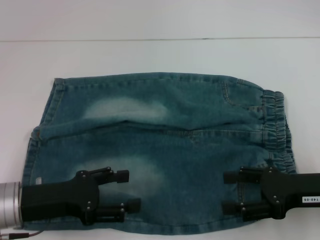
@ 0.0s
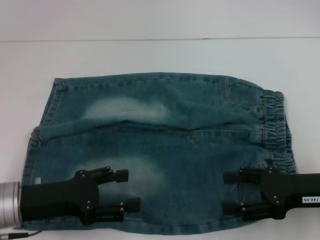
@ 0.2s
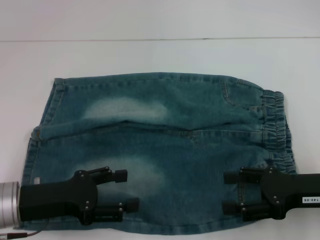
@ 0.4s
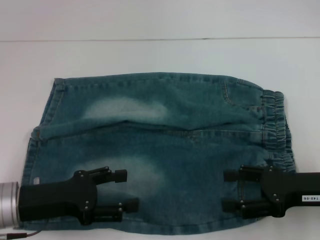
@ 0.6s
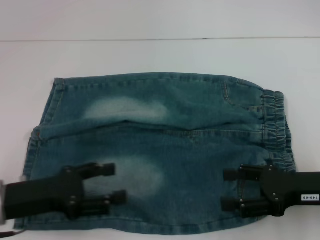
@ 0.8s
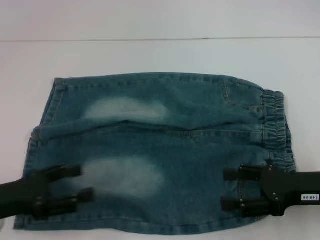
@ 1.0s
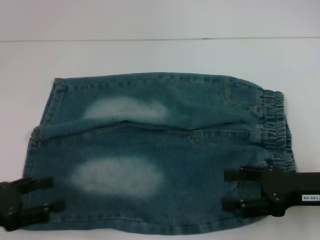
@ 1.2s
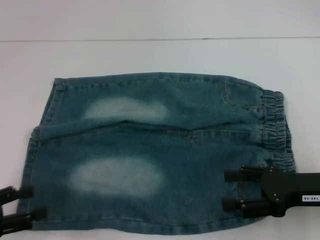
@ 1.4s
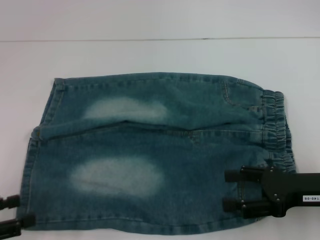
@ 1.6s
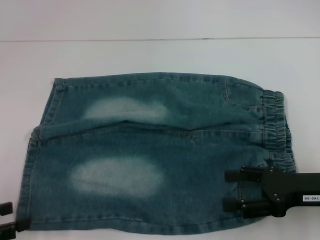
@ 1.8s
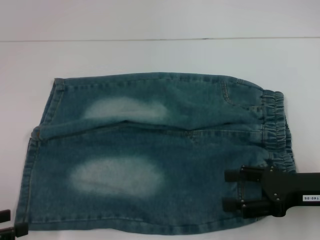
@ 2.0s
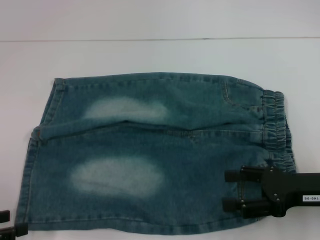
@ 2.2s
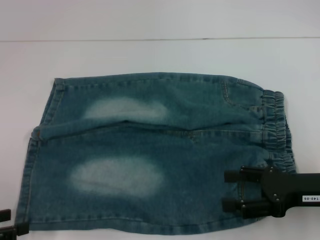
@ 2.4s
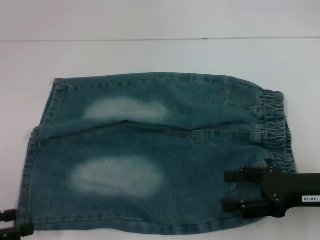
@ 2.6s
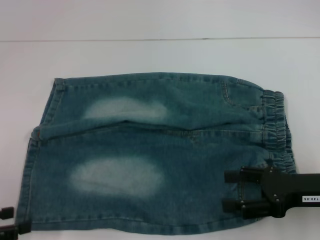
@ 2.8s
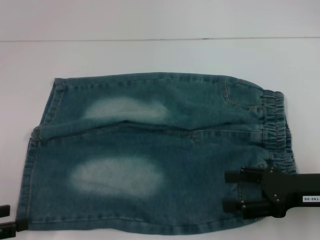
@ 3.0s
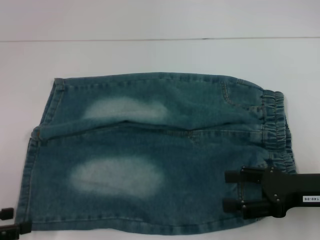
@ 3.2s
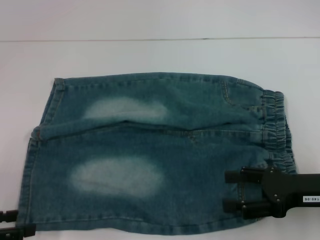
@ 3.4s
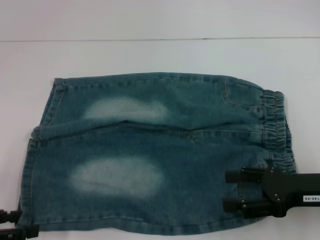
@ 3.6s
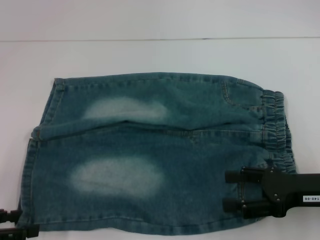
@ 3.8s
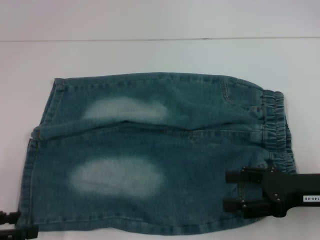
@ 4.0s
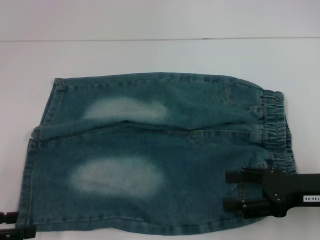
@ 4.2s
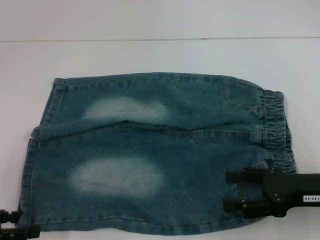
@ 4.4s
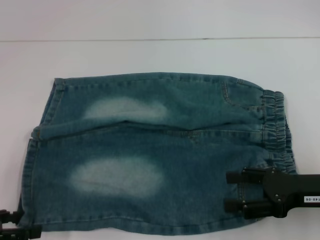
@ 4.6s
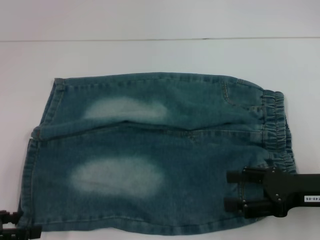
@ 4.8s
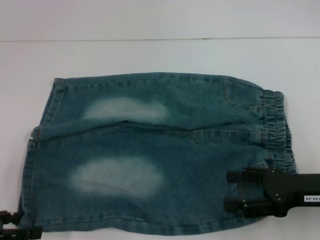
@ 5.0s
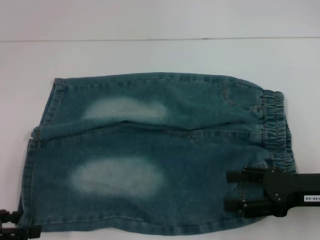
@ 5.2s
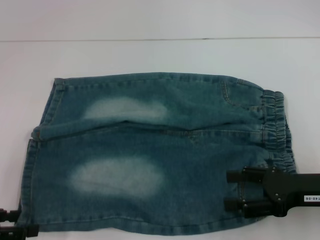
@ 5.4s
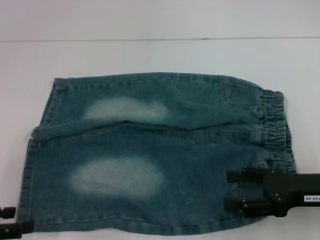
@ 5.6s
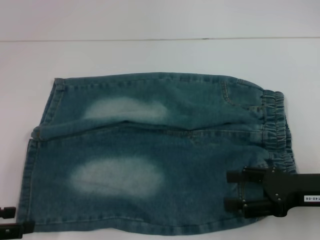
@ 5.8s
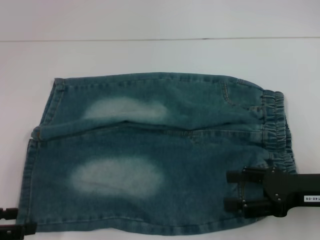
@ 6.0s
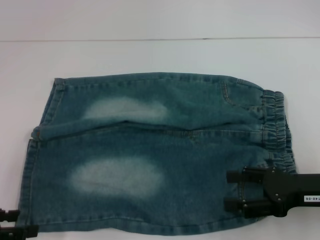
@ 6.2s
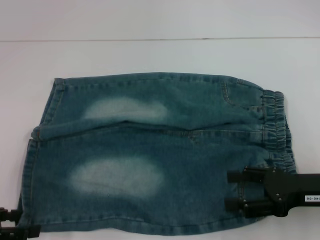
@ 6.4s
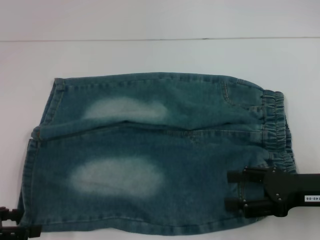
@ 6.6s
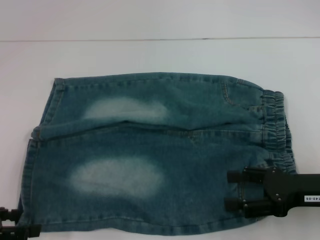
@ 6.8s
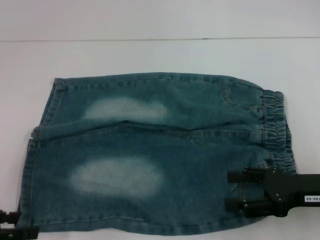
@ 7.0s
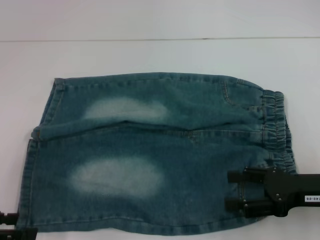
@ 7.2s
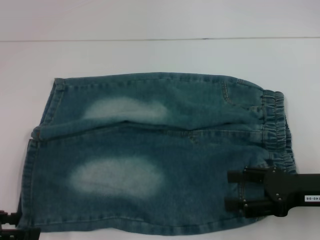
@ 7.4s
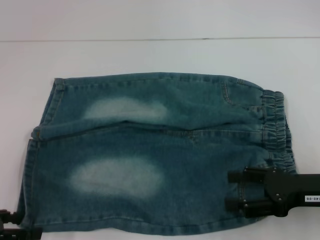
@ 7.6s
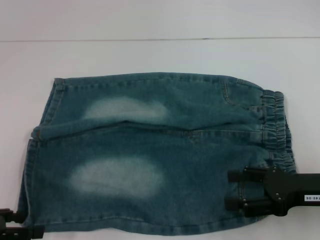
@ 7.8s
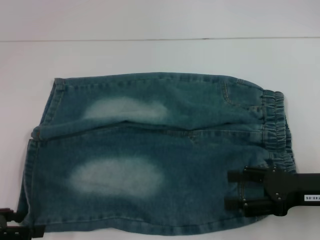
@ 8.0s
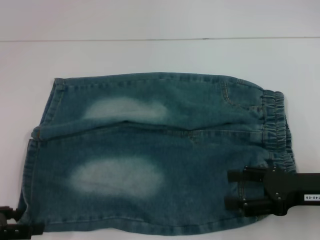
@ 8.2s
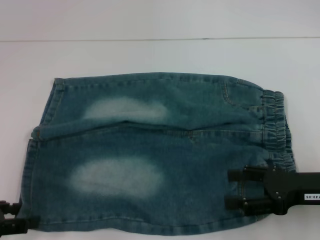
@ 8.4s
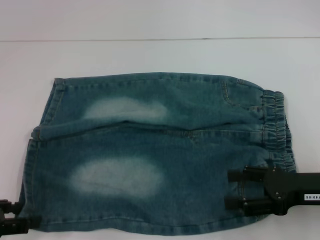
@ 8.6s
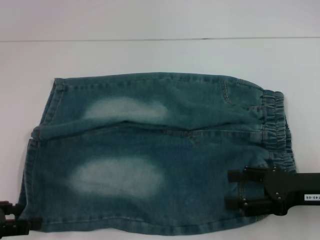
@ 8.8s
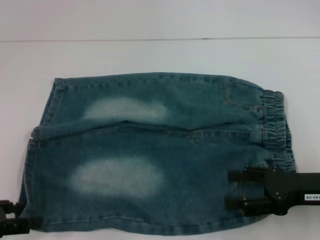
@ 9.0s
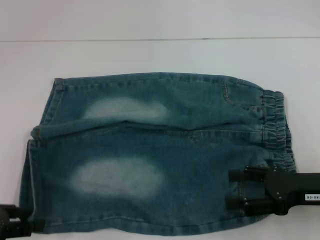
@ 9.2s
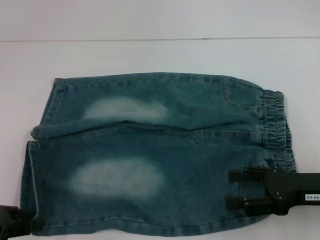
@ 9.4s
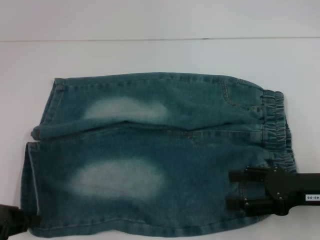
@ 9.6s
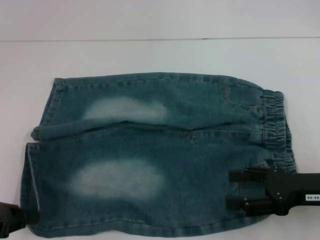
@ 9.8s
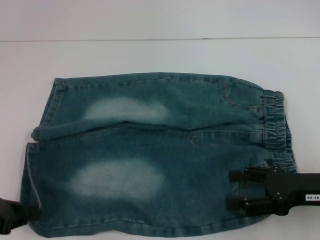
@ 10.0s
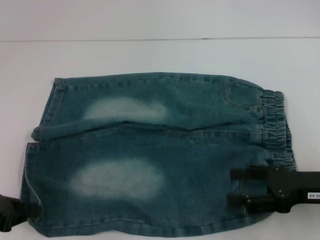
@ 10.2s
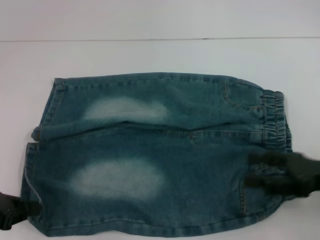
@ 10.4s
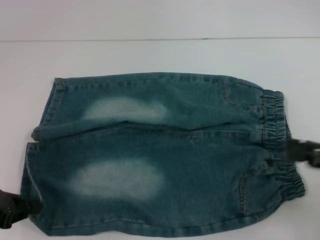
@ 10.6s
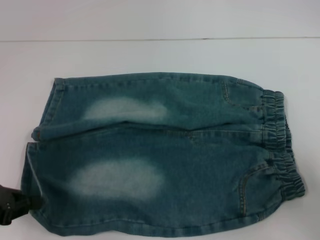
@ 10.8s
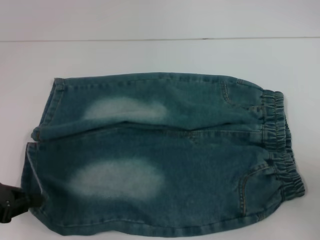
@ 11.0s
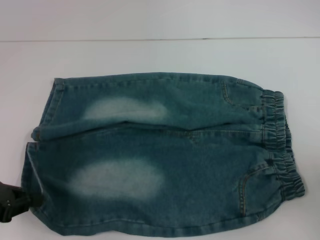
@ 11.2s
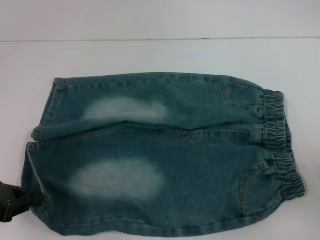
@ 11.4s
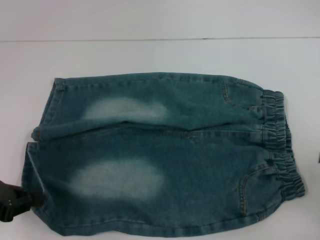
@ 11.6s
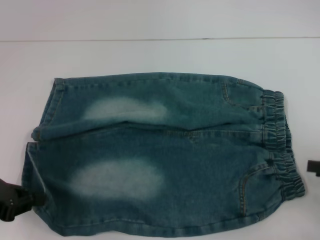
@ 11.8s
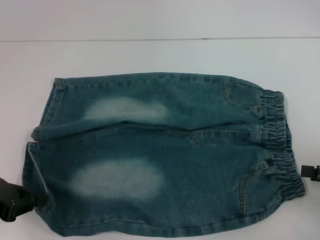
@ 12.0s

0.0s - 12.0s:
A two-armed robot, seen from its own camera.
Step, 0.0s - 10.2s: Grab the lower left pant leg with your left hand.
0.0s - 1.6s: The left gripper moves to the left and backward, roughly 15 cm.
3.0s - 4.4s: The grippers move only a little.
4.4s - 6.0s: Both grippers stay about where they are.
6.0s - 7.6s: Neither gripper changes place.
7.6s - 9.0s: There are only small adjustments of the grippers.
9.0s - 10.4s: The left gripper closes up.
10.4s - 12.0s: The right gripper travels to the right by roughly 10 cm.

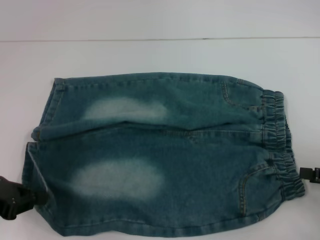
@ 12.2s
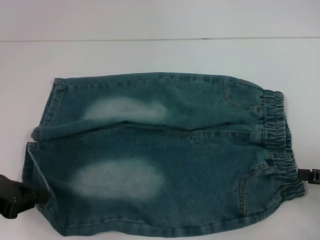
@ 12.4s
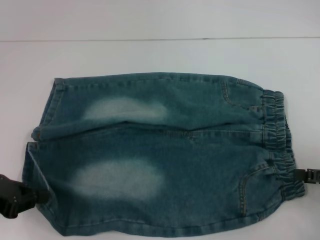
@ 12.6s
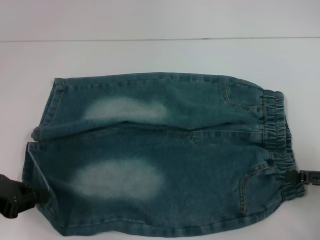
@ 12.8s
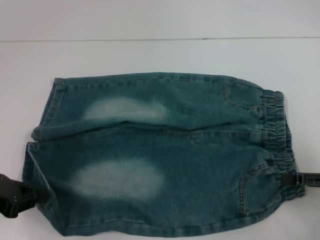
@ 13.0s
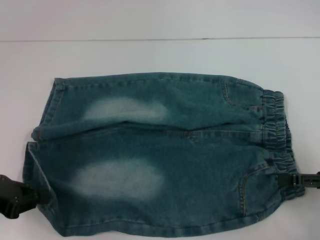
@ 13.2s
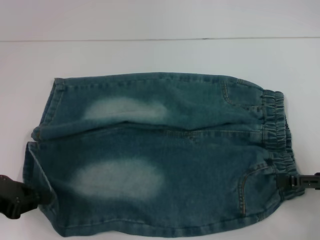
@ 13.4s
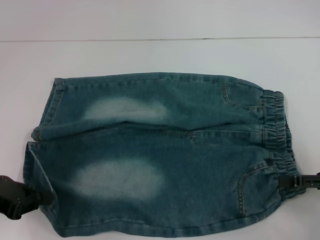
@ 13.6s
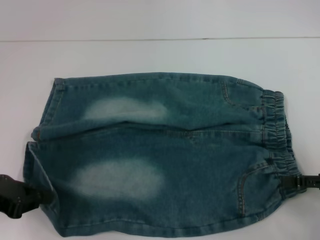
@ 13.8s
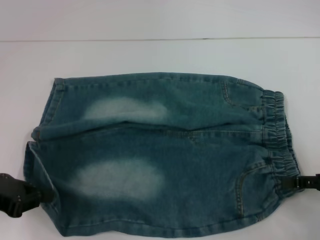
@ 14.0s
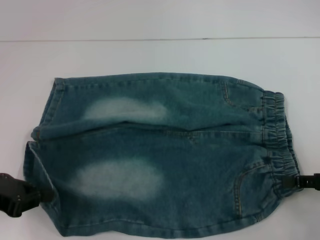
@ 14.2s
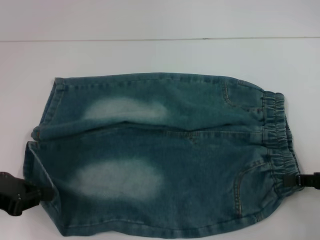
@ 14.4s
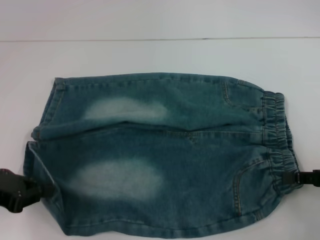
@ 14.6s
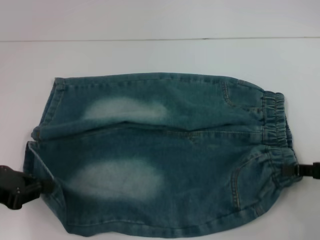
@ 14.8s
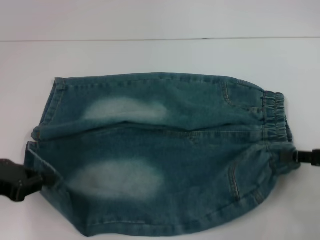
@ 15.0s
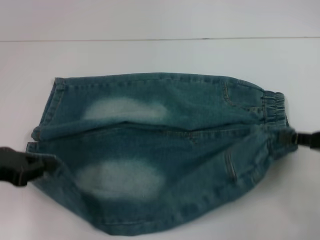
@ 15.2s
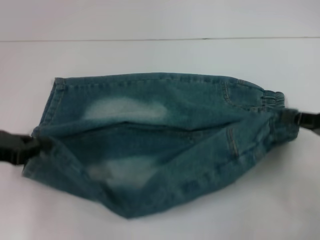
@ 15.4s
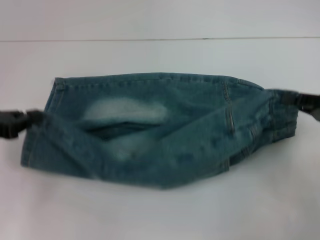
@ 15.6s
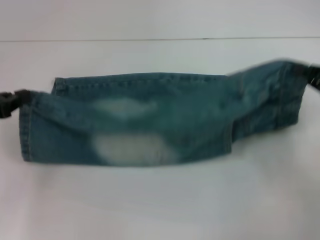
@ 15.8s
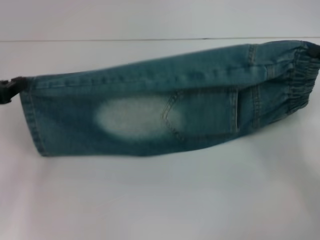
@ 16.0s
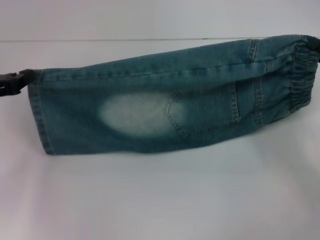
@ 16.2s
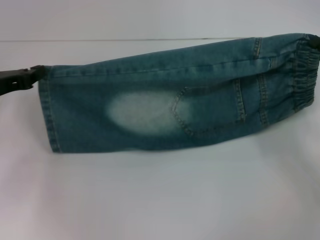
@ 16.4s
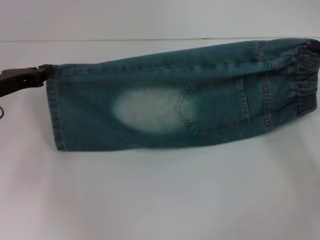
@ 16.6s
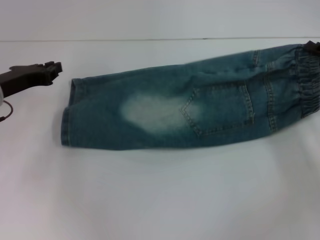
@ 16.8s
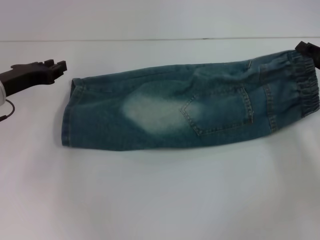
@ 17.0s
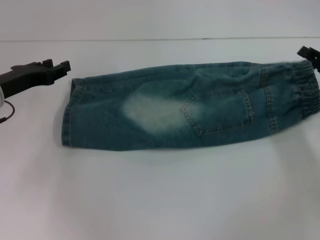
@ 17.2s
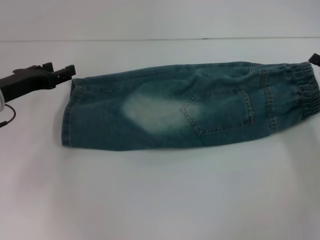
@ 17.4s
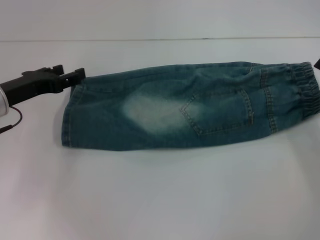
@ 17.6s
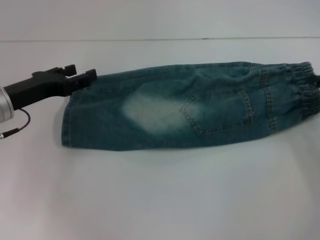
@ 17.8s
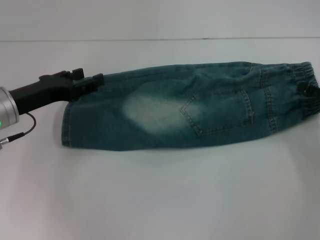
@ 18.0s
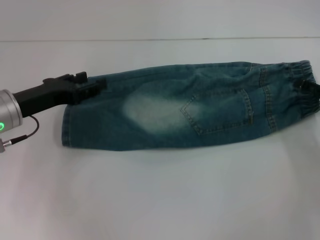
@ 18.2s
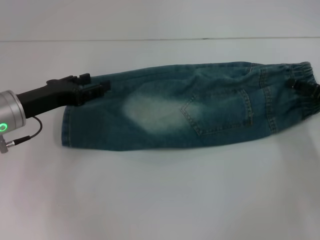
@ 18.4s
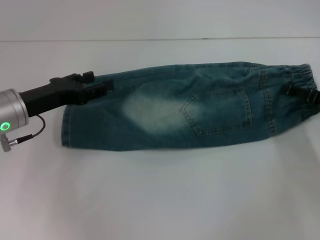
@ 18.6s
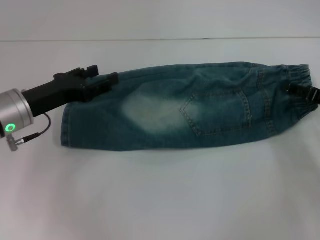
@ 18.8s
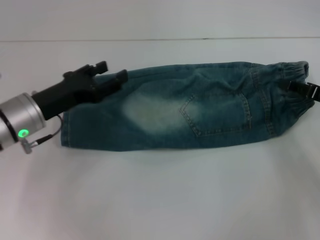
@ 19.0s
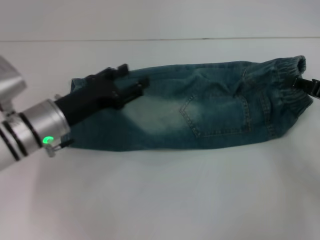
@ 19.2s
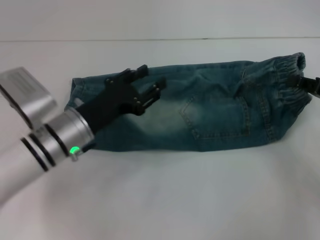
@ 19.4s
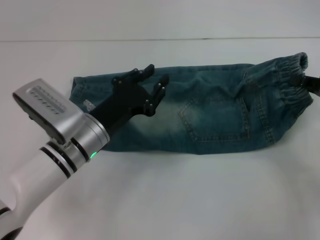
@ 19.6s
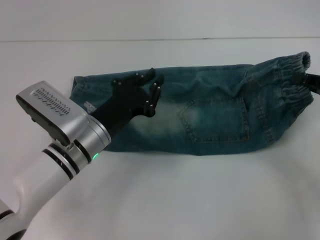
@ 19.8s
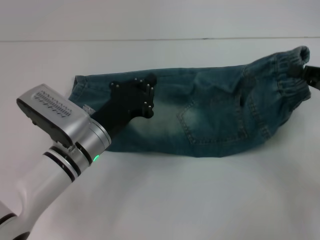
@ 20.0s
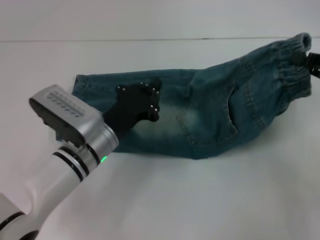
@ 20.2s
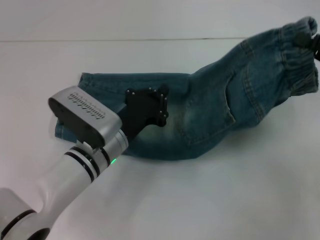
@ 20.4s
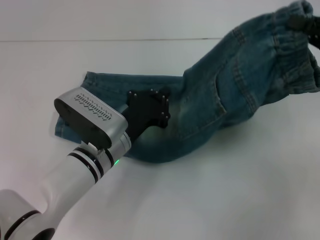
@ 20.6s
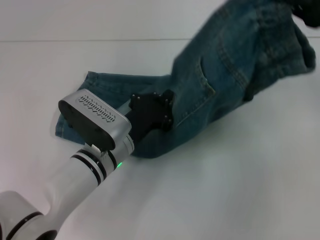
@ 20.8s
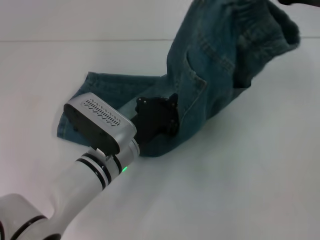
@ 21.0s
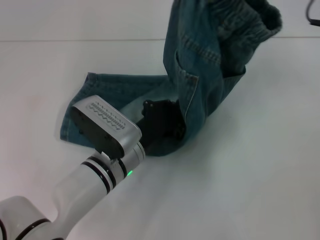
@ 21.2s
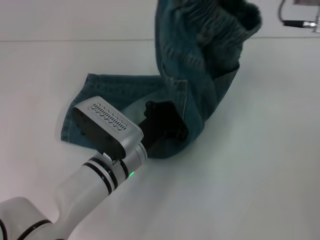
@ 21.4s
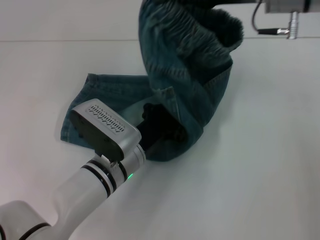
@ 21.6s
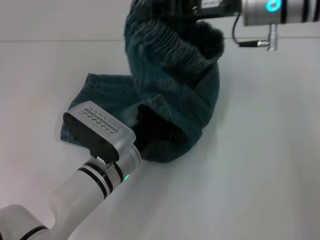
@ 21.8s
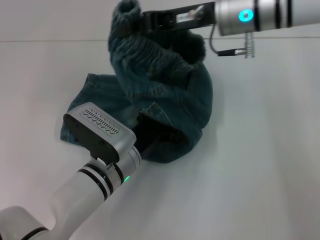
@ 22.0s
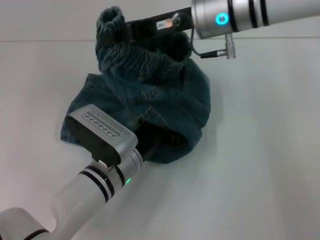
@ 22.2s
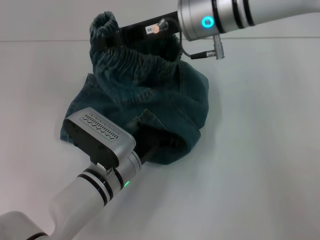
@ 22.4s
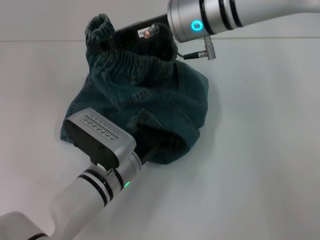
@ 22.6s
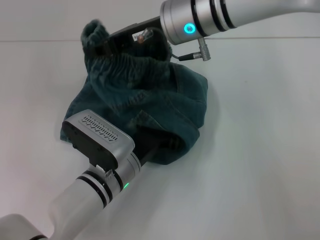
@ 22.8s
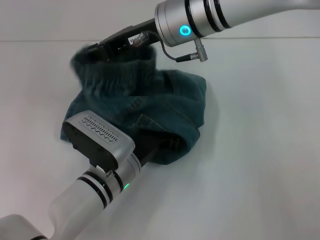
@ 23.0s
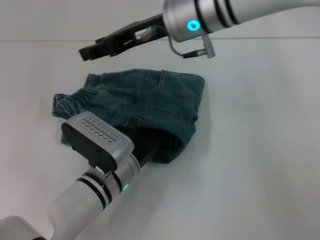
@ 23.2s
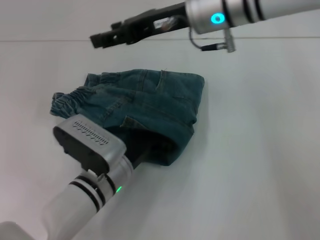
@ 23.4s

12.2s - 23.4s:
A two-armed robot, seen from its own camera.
Step, 12.2s - 14.4s: Hold the lower right waistband with your right hand.
Step, 14.8s - 16.6s: Fold upward with your left hand.
Step, 17.0s - 17.2s: Fold upward with your right hand.
Step, 17.4s - 19.2s: Grab the waistband with your right hand.
Step, 19.4s - 23.2s: Fold to the left with your right hand.
12.2s - 13.8s: The grippers move only a little.
13.8s - 15.4s: The right gripper closes its fingers.
15.4s - 17.0s: The grippers both shift forward by roughly 10 cm.
17.0s - 18.6s: The left gripper opens; the right gripper opens.
18.6s - 20.2s: The right gripper is displaced upward by about 5 cm, and closes up; the left gripper goes approximately 15 cm to the right and downward, and closes.
20.2s - 21.8s: The right gripper shifts approximately 25 cm to the left, forward and upward.
21.8s - 23.4s: The right gripper shifts some 5 cm to the left, and opens up.
